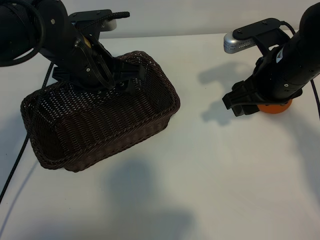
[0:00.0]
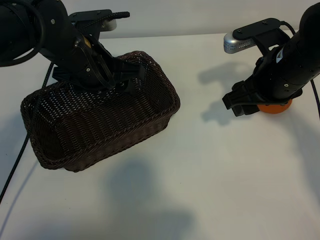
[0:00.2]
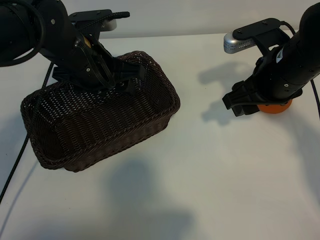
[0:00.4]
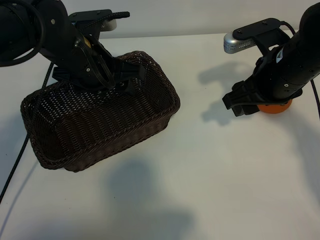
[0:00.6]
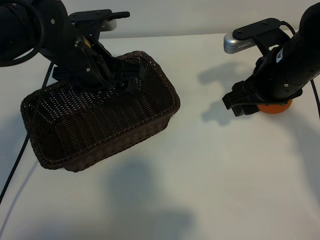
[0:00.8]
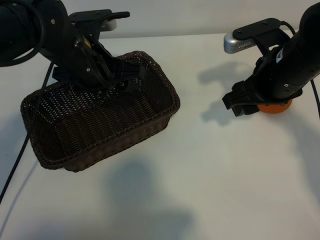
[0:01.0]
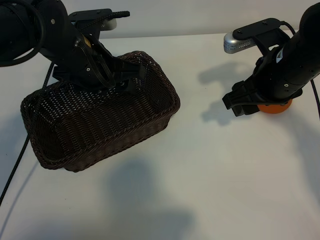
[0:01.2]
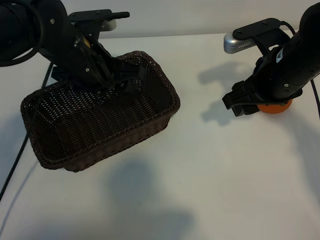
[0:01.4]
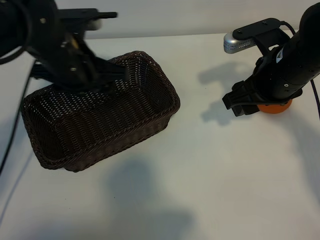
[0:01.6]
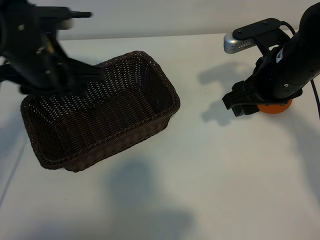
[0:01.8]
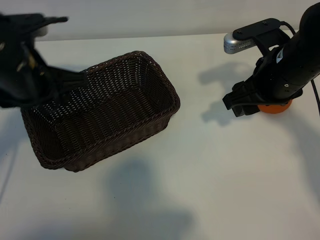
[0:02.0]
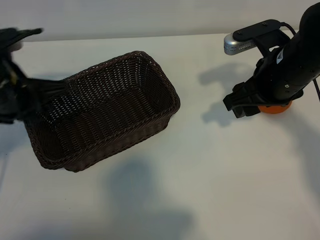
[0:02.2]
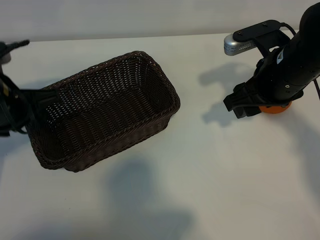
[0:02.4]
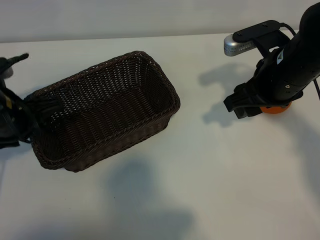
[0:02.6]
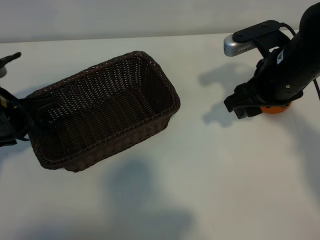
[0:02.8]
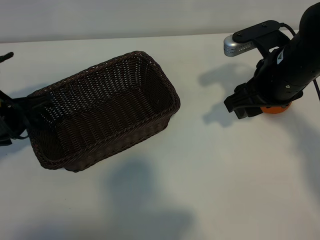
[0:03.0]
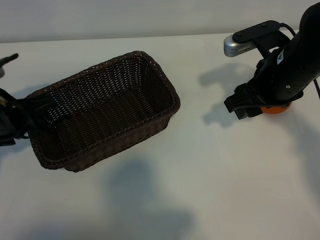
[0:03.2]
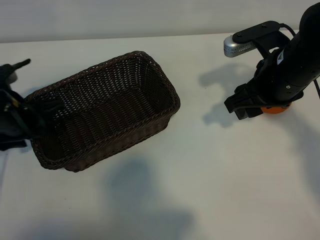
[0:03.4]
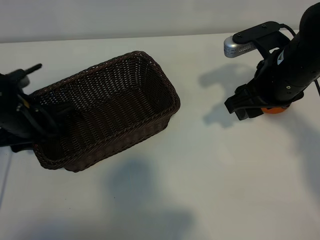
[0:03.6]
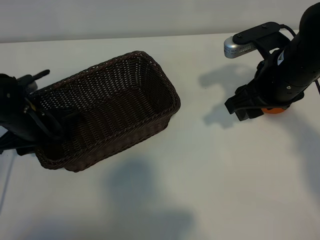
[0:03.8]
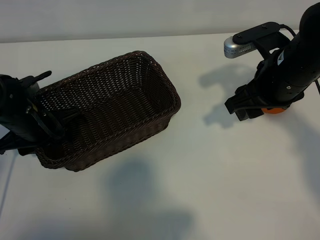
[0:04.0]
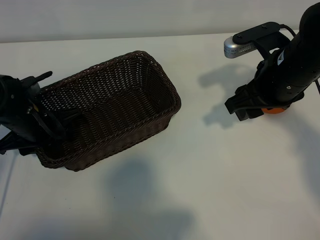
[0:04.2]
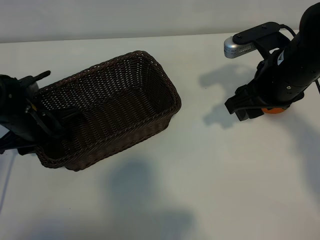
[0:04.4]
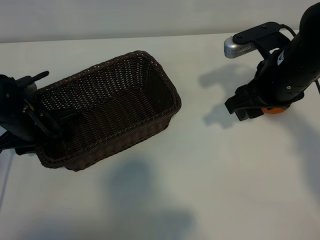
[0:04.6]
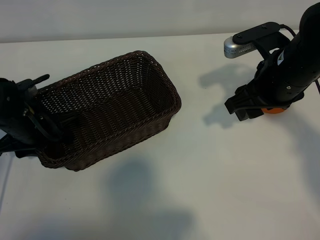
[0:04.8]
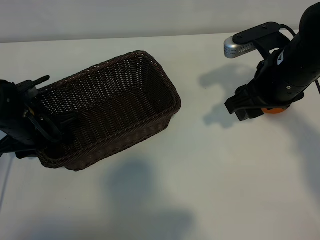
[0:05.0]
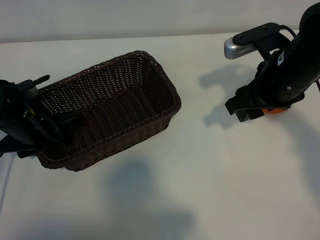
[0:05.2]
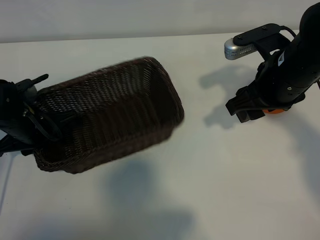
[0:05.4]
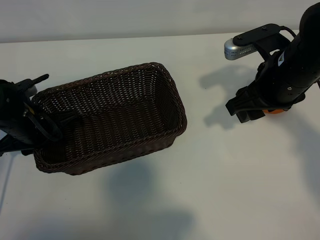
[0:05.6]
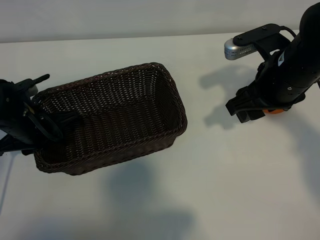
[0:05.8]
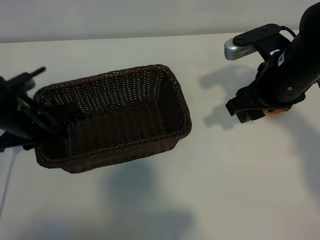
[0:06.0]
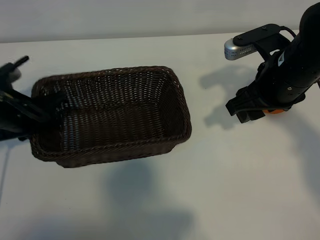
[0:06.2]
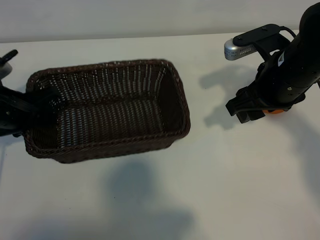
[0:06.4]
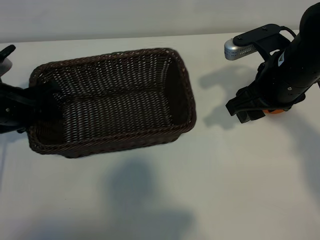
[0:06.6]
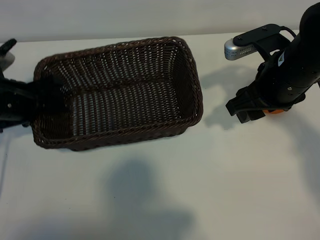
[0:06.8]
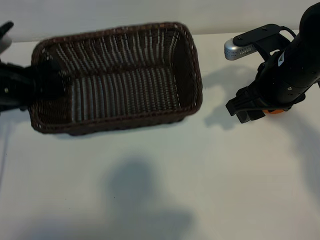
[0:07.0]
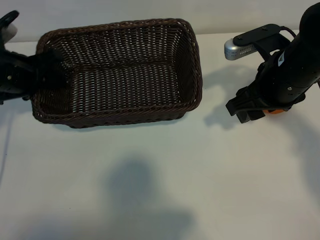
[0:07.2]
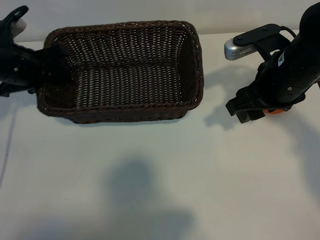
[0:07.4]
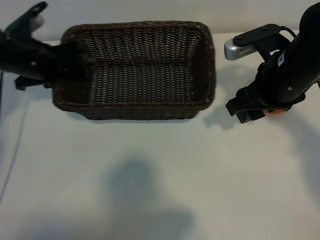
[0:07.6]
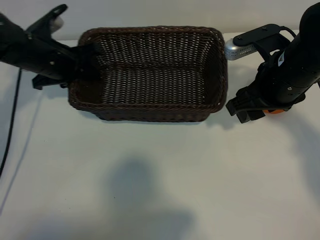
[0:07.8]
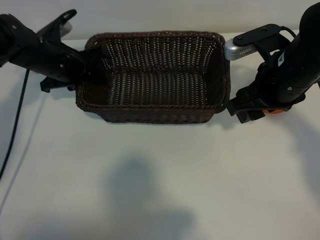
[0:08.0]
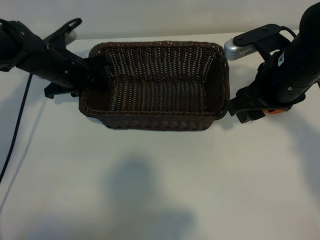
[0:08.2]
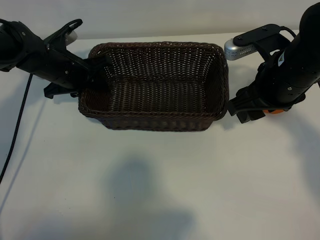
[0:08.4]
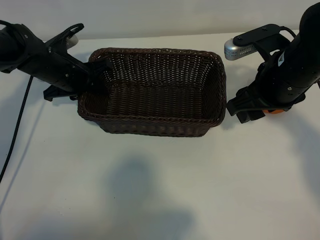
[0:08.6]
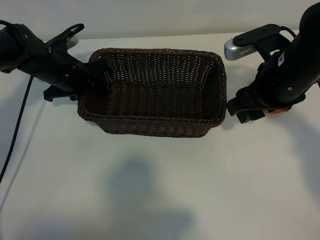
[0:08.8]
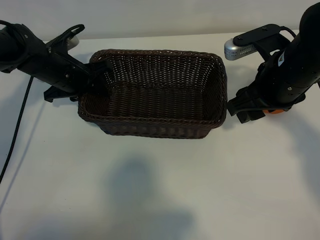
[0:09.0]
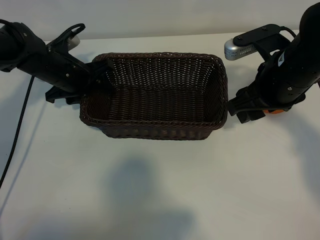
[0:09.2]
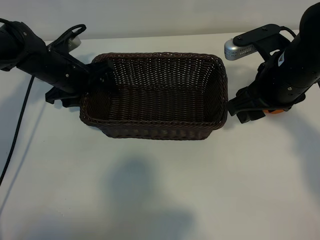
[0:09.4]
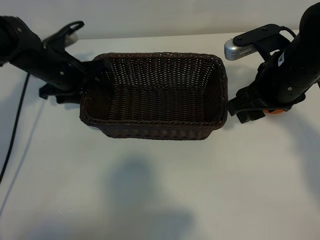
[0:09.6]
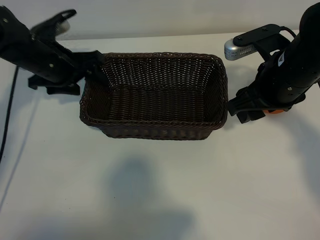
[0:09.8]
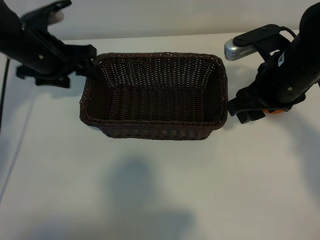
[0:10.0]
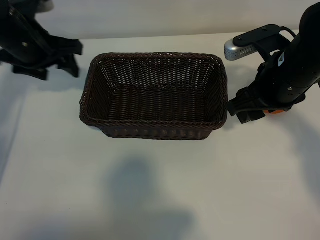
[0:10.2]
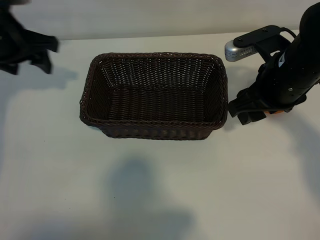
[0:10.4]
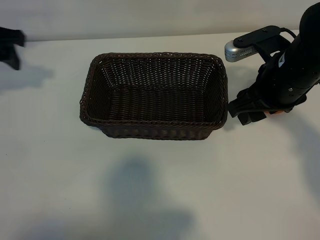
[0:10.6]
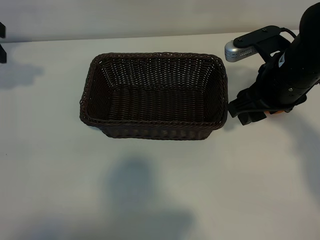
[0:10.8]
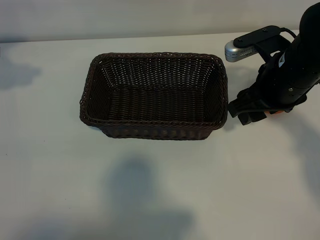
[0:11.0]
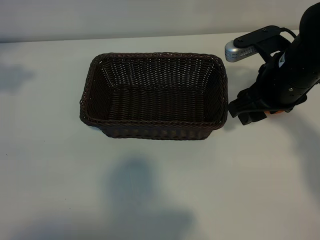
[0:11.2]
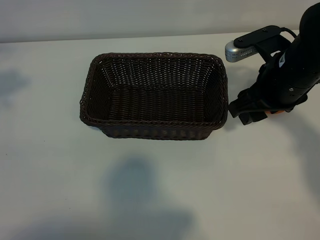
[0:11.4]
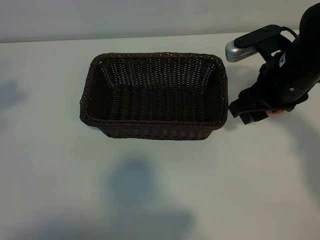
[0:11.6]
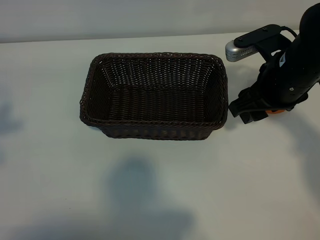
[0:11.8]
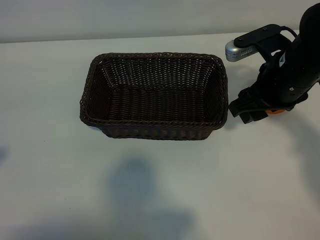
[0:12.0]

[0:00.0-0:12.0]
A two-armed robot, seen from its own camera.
Task of the whole recording: pick up the orange and put it into the basket.
Step, 0:01.2 to 0:05.4: Grasp the basket with left gripper.
Step, 0:05.6 to 0:09.0: Place the basket in the center of view with left gripper.

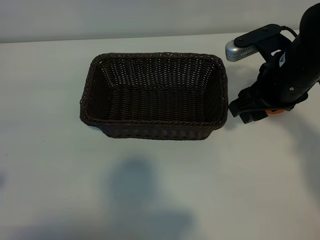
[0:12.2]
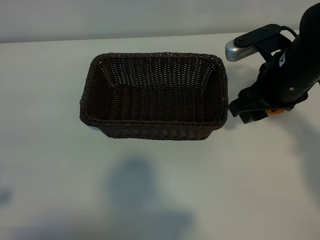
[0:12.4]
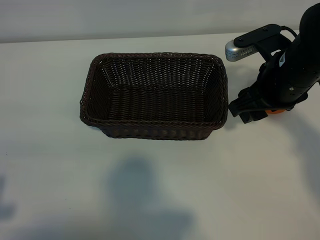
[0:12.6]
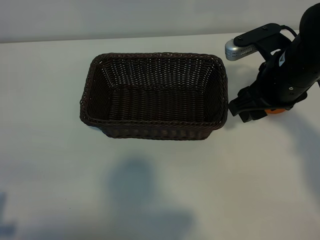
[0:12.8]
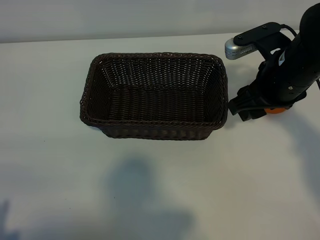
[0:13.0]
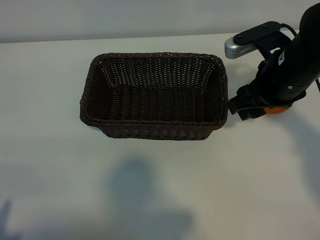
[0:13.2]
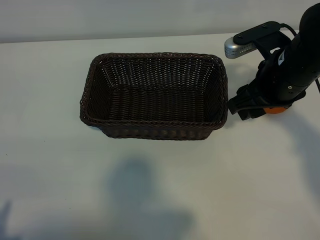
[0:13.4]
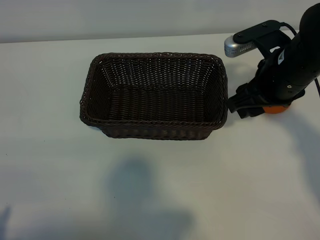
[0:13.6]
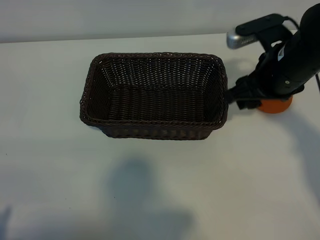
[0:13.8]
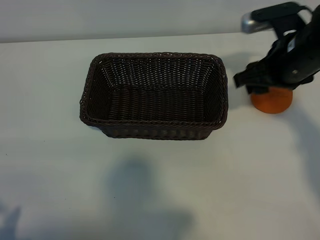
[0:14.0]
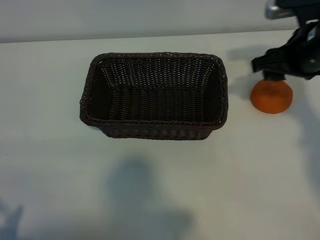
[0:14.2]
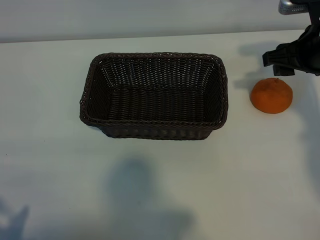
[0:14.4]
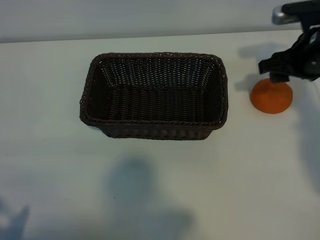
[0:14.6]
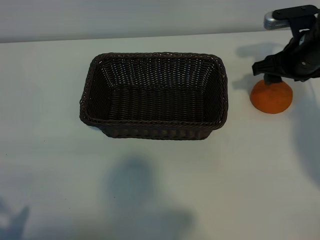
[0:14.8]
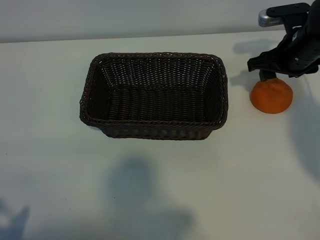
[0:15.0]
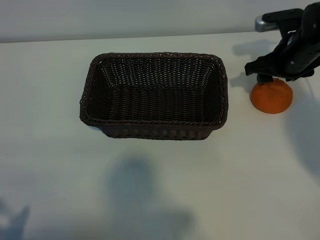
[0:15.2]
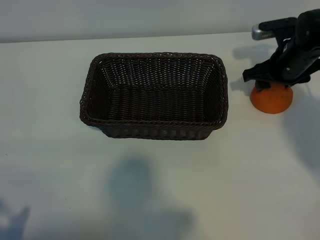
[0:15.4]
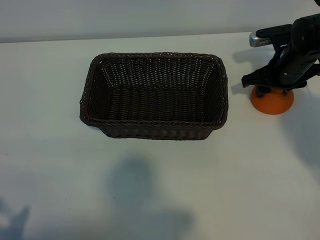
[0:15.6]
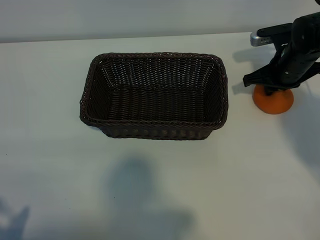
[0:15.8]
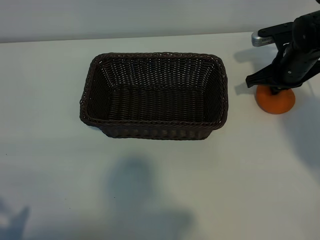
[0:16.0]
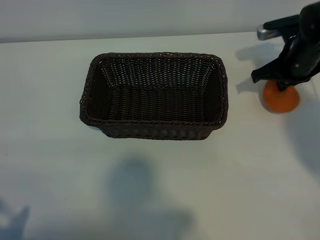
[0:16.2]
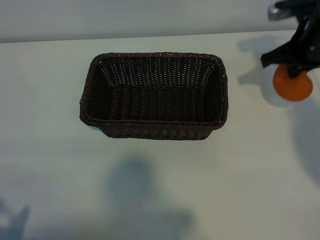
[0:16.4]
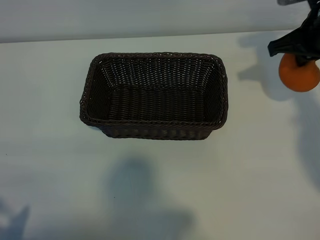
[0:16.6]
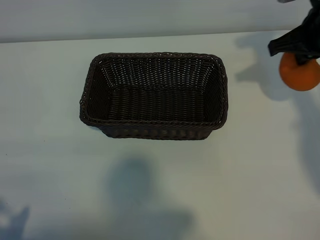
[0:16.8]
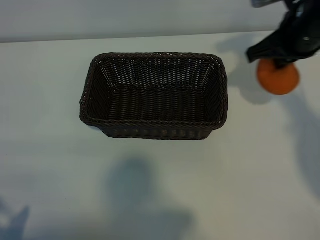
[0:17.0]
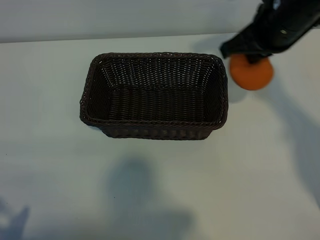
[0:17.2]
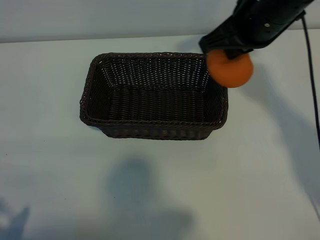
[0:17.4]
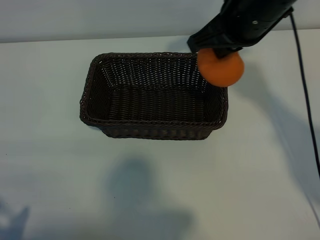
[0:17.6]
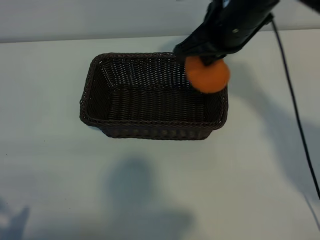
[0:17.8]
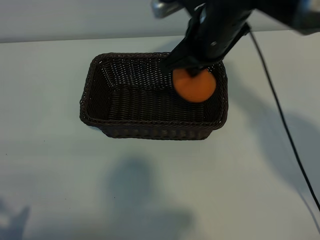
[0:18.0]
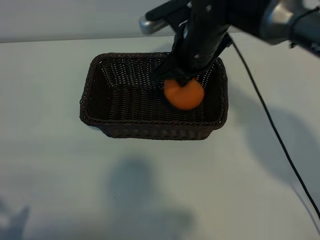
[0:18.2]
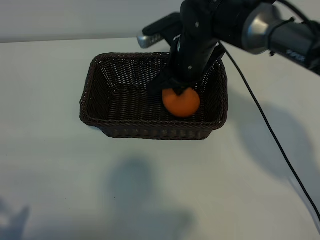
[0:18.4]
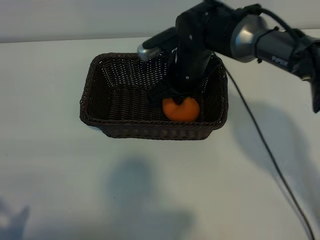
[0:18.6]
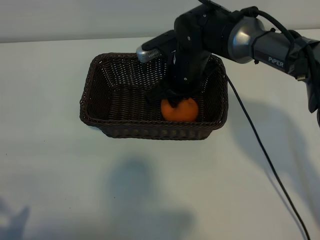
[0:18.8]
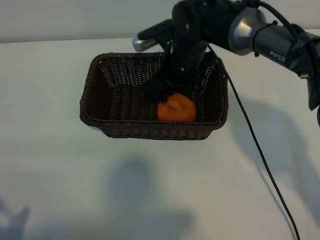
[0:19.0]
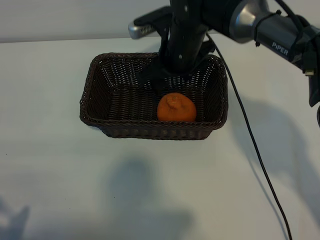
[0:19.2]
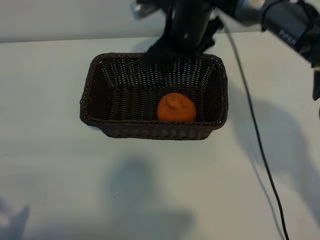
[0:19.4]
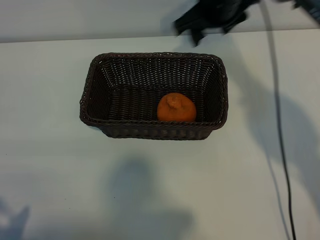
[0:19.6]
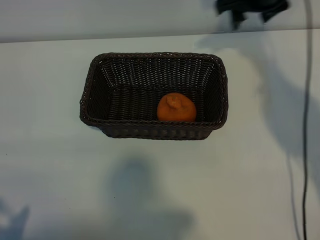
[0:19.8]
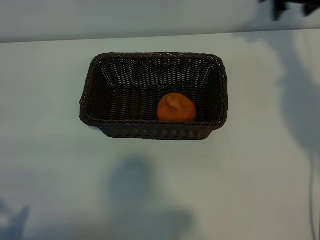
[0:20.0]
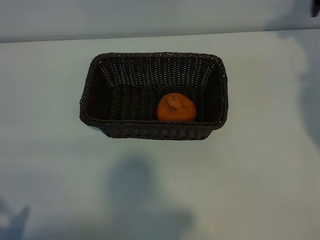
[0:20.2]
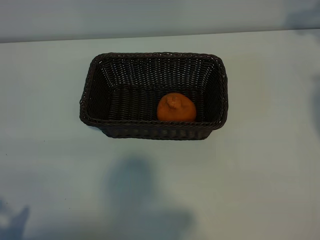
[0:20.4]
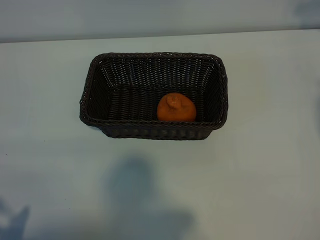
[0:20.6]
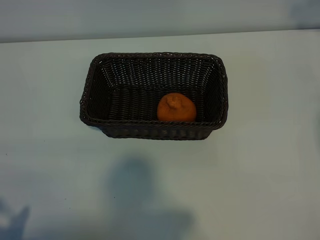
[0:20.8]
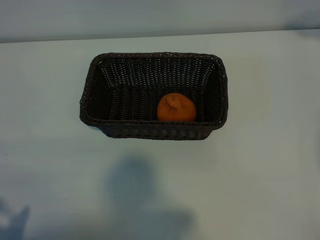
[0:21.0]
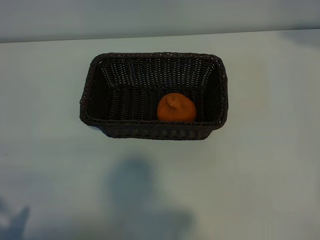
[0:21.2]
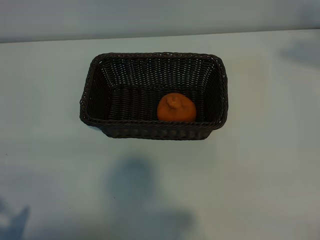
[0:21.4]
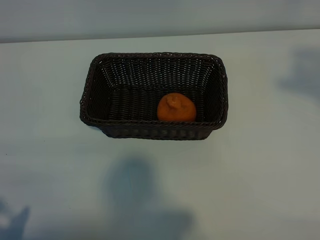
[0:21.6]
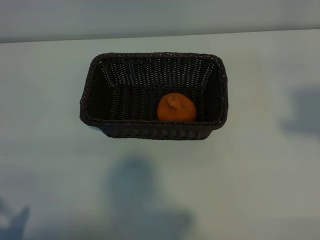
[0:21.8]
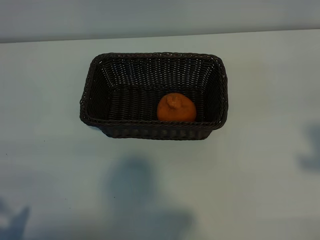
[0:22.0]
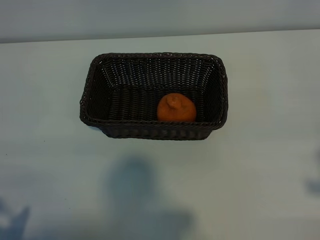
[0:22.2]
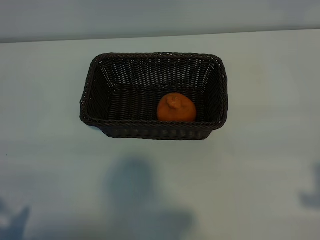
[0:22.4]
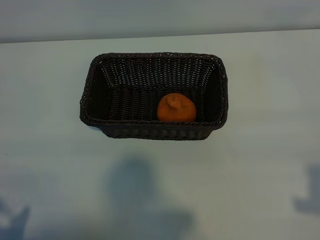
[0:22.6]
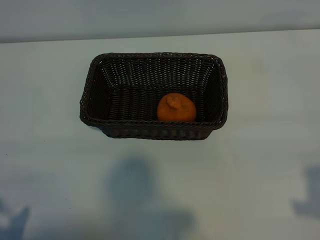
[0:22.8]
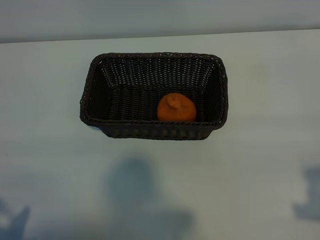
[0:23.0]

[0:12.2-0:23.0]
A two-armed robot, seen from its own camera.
Task of the whole recording: pick up the orange and put it into the basket.
Step, 0:12.2 to 0:15.8: Grasp the orange with right gripper.
Step, 0:16.0 to 0:18.8: Place the orange in the basket with right gripper.
